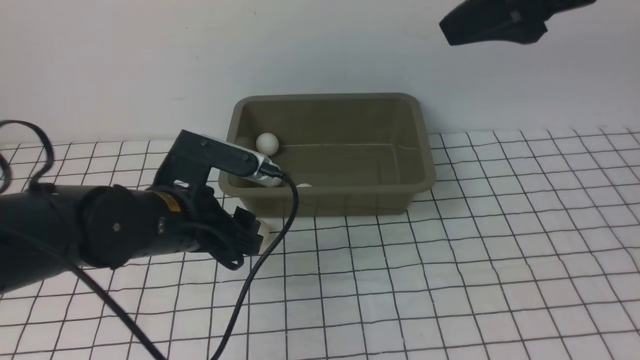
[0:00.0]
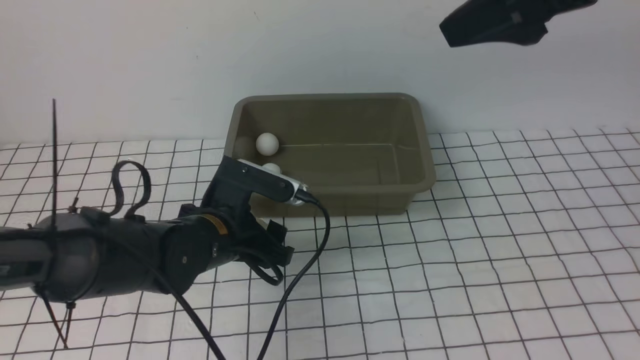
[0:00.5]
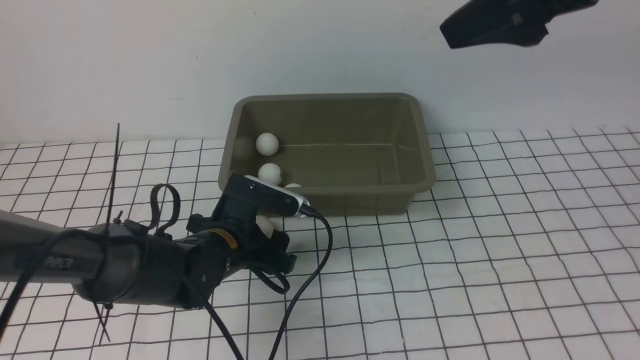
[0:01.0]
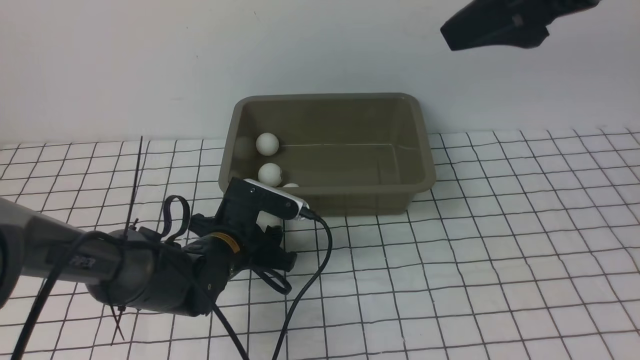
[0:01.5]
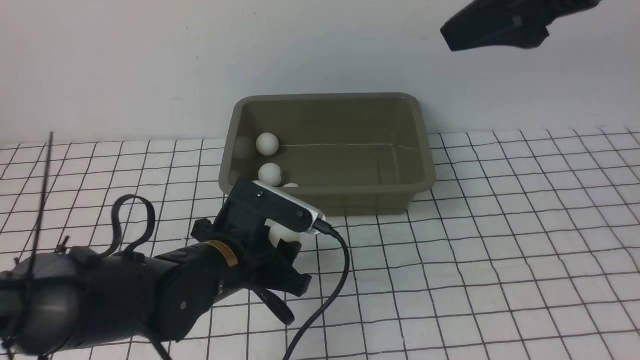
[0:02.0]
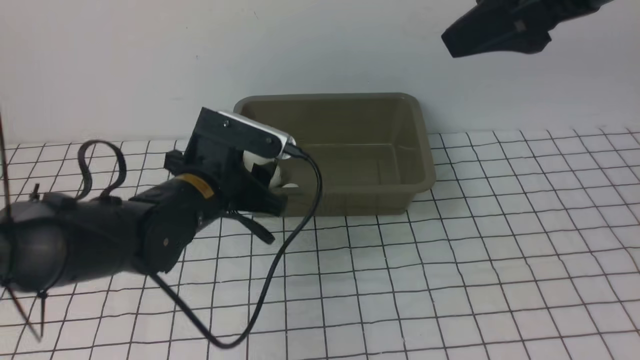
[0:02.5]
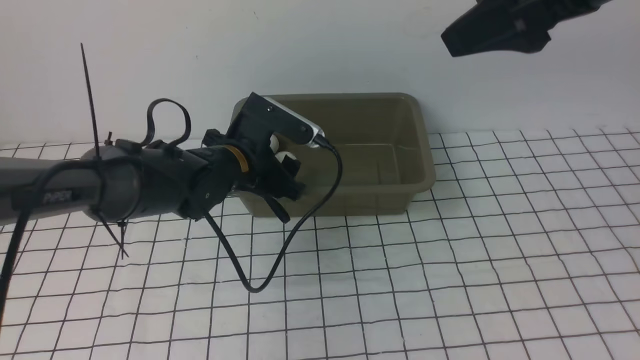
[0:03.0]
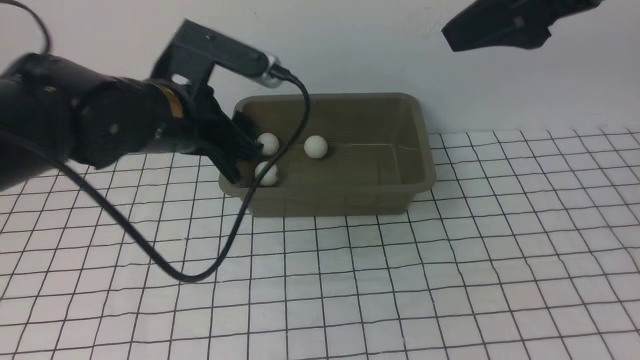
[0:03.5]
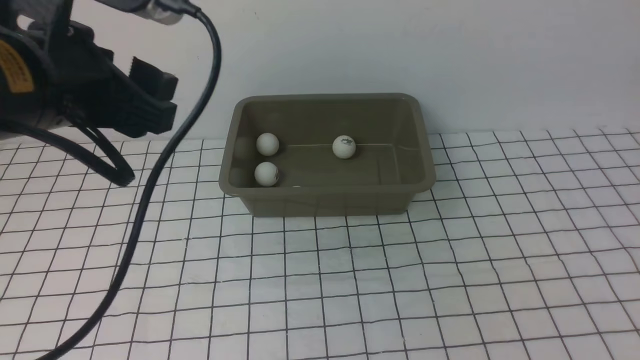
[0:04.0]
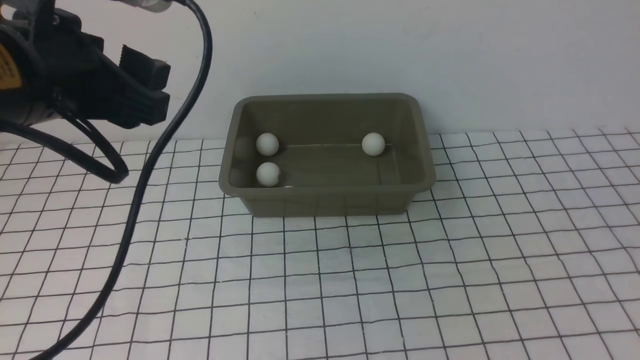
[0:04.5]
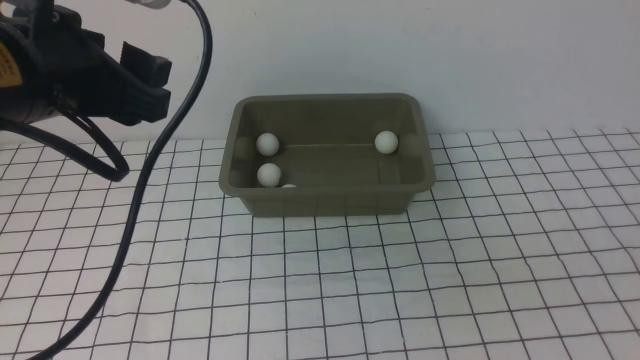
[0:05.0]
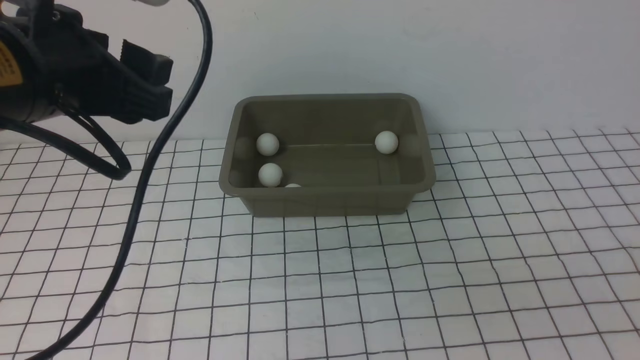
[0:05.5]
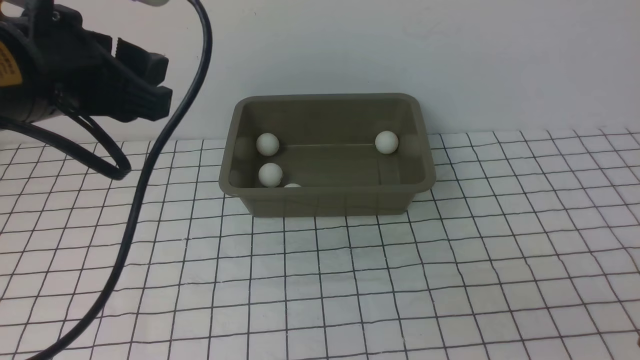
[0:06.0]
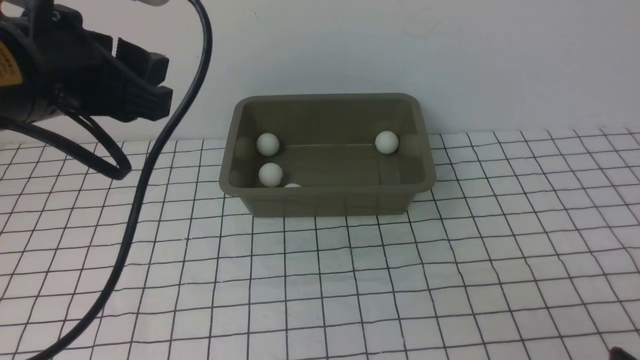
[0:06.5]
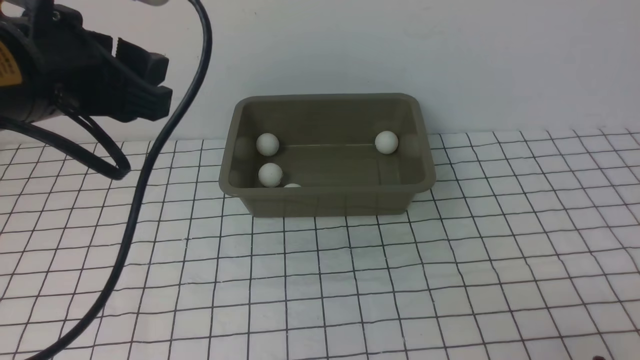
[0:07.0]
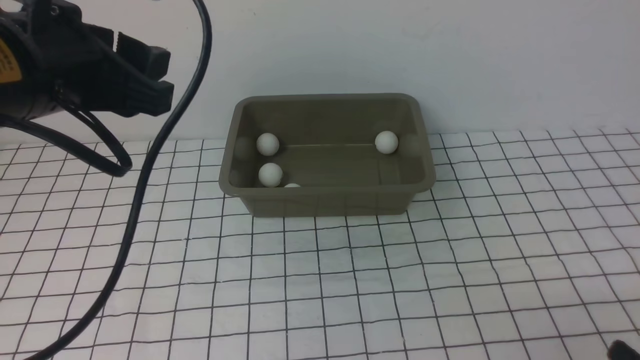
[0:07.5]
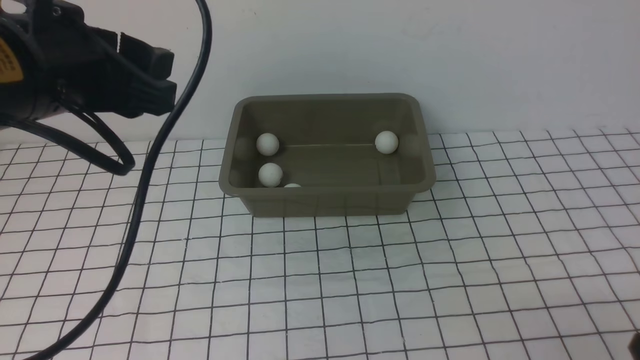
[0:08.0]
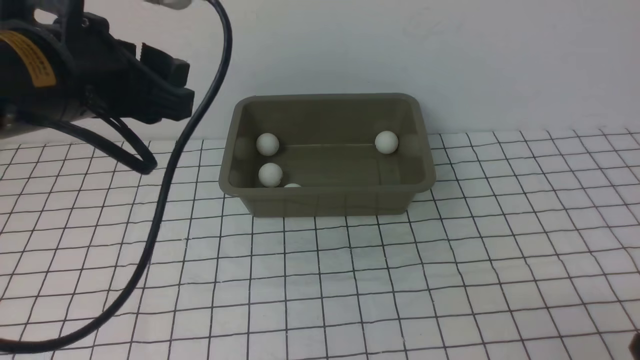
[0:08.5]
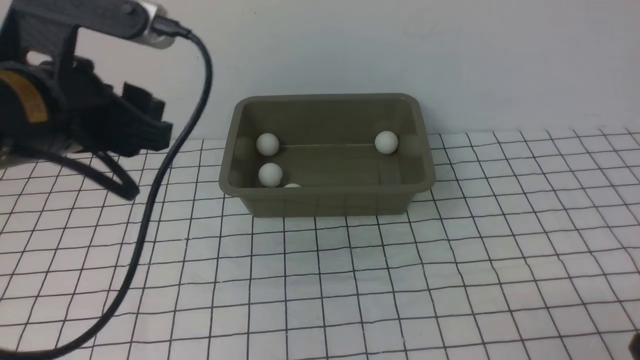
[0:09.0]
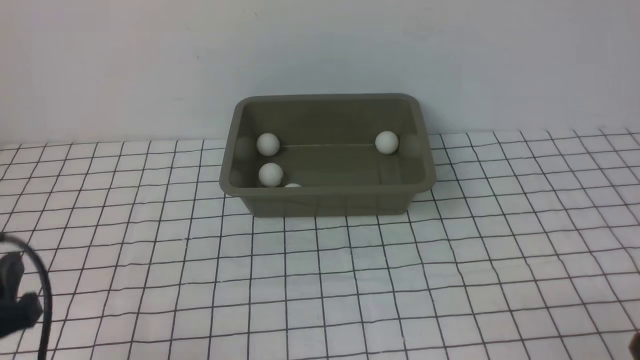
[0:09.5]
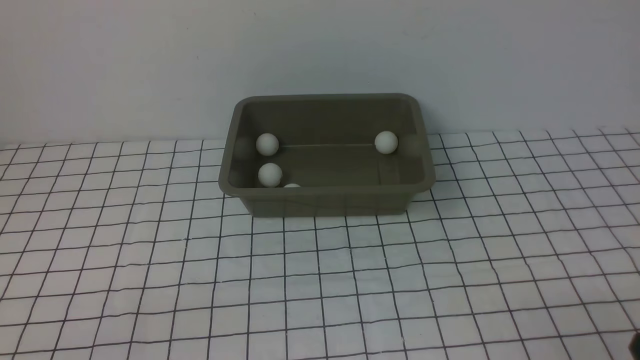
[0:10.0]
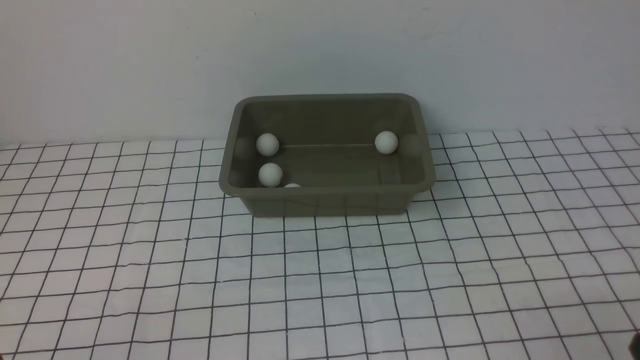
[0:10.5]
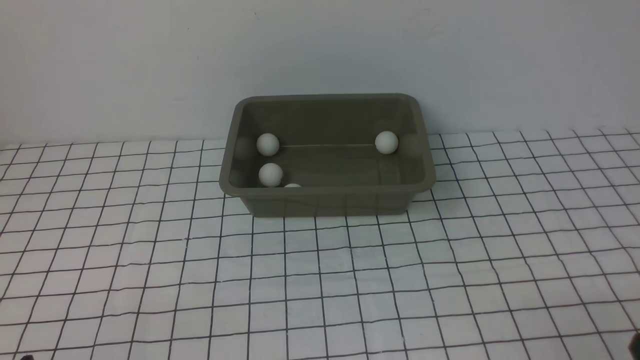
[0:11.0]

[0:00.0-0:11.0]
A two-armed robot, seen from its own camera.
Step, 0:00.0 to 0:02.0: use the left arm to clamp the table tennis ball closest to it.
Step, 0:02.5 to 0:03.0: use the left arm to put the table tennis ball into the box.
0:00.0 to 0:02.0: The left gripper moves forward, approximately 5 cm.
0:02.0 to 0:03.5: The left gripper moves upward and backward, about 25 cm, while the right gripper shifts roughly 25 cm backward and to the right.
0:03.5 to 0:05.5: The right gripper goes roughly 30 cm downward.
0:05.5 to 0:07.5: The grippers stay close to where they were, moving slightly.
0:07.5 to 0:09.0: The left gripper travels downward, backward and to the left by roughly 20 cm.
0:09.0 to 0:11.0: The left gripper shifts about 15 cm downward and backward.

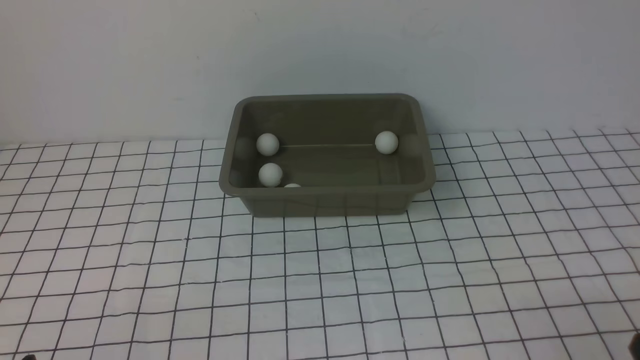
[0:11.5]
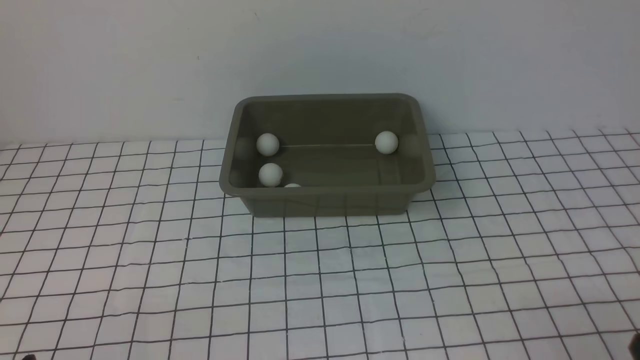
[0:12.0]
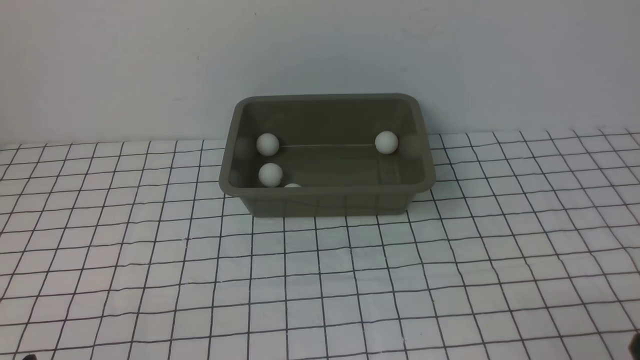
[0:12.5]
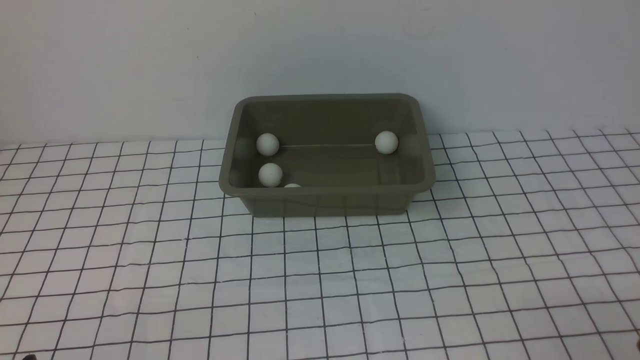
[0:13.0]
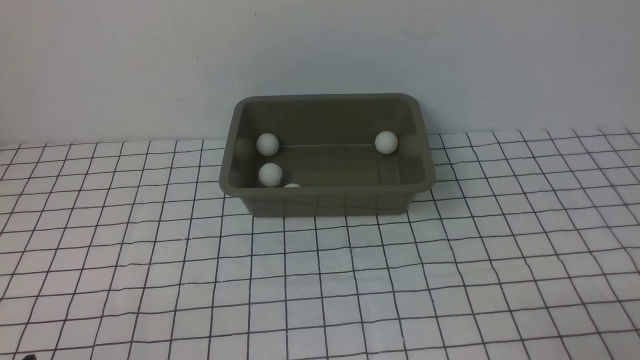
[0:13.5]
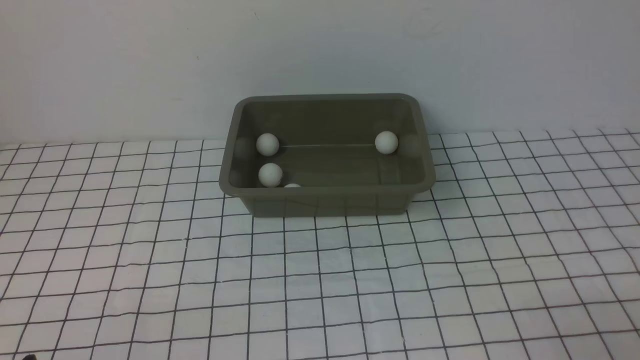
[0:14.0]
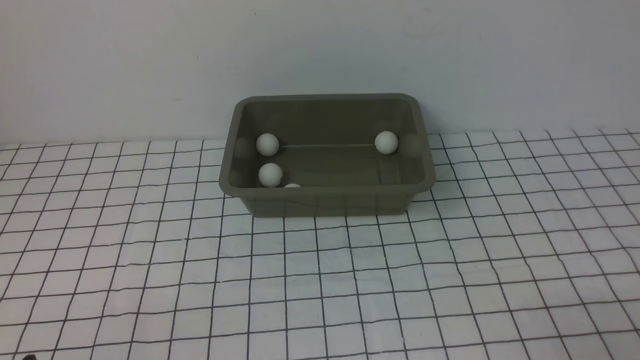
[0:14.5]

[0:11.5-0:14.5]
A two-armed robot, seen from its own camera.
0:11.5 to 0:14.5: Both grippers stay put.
